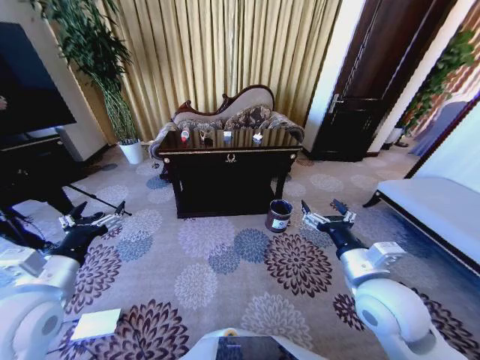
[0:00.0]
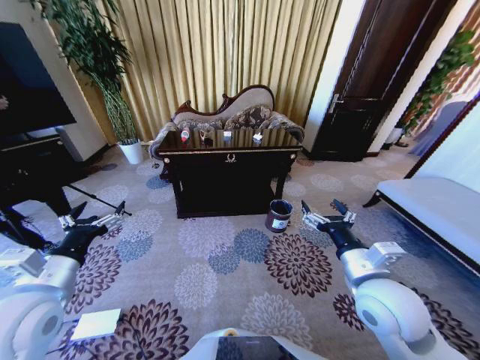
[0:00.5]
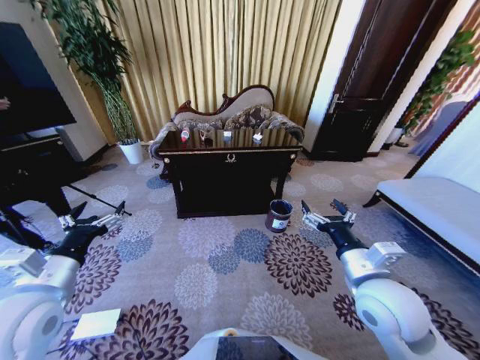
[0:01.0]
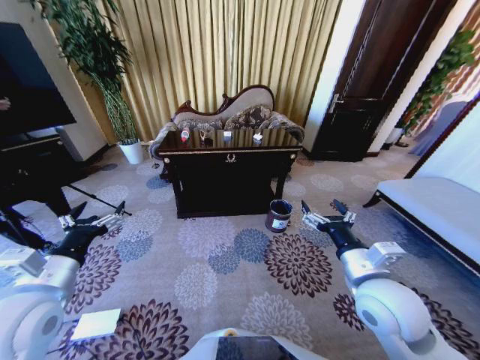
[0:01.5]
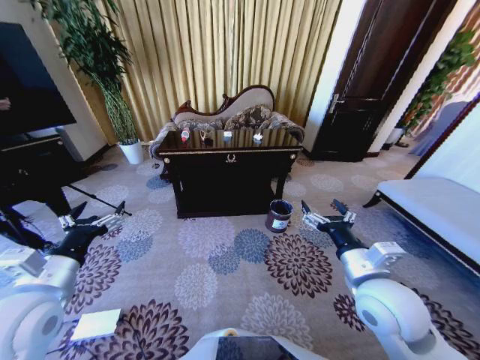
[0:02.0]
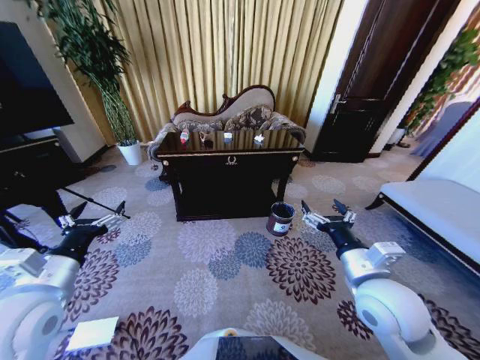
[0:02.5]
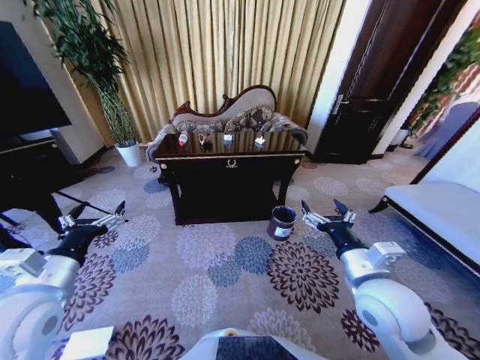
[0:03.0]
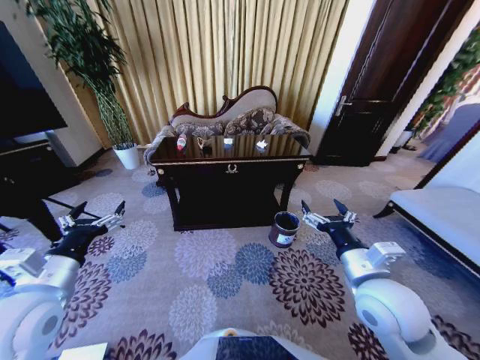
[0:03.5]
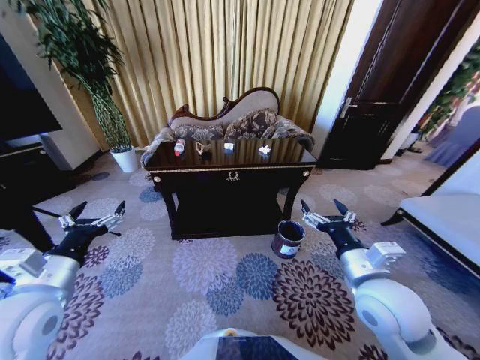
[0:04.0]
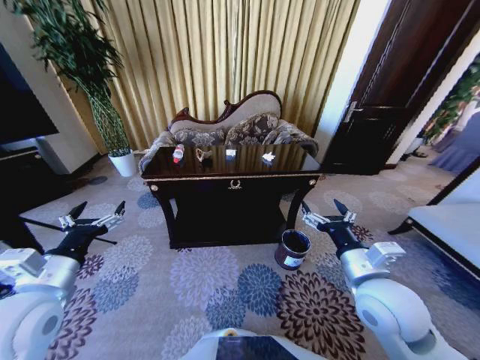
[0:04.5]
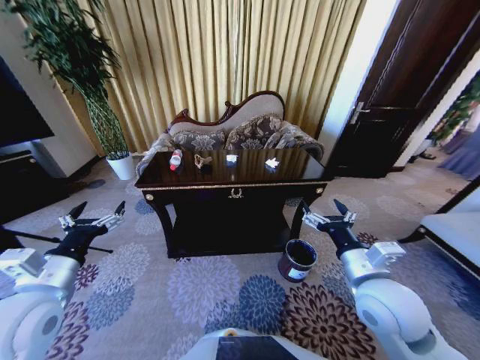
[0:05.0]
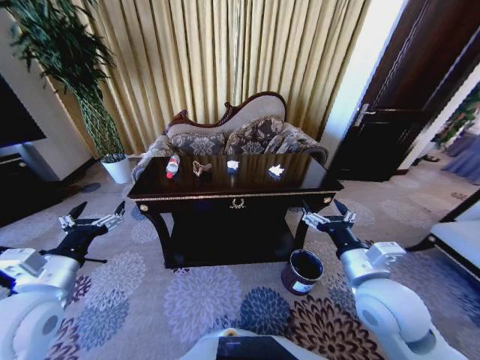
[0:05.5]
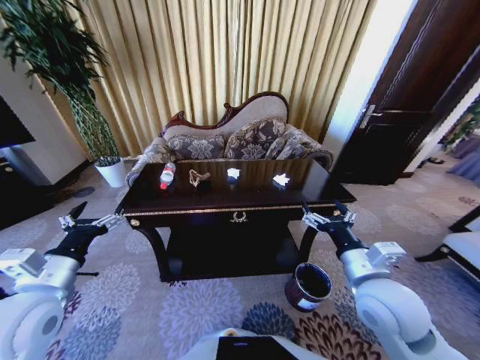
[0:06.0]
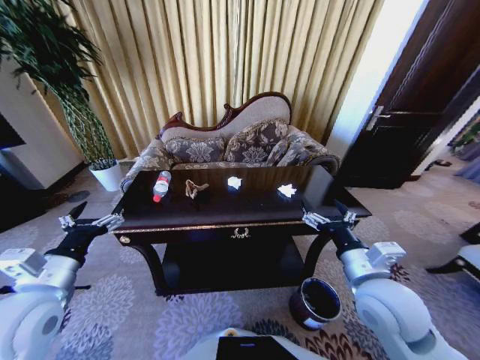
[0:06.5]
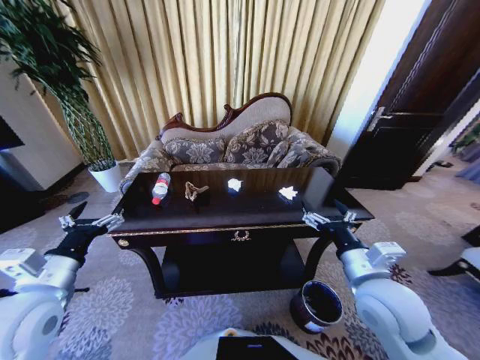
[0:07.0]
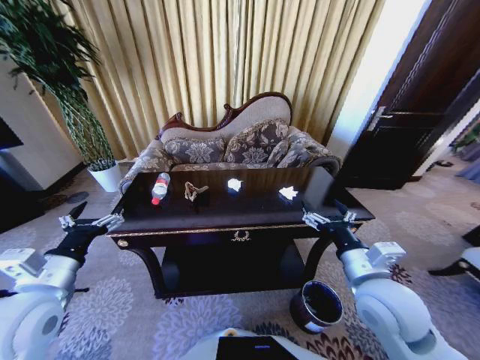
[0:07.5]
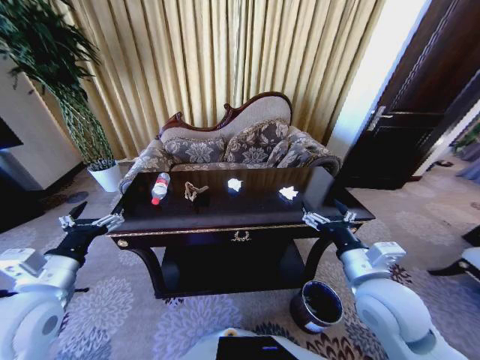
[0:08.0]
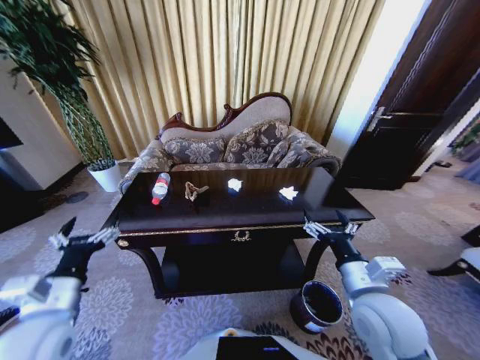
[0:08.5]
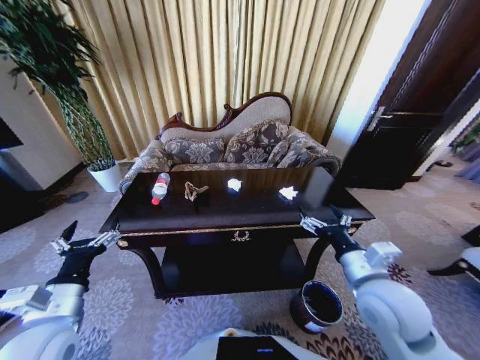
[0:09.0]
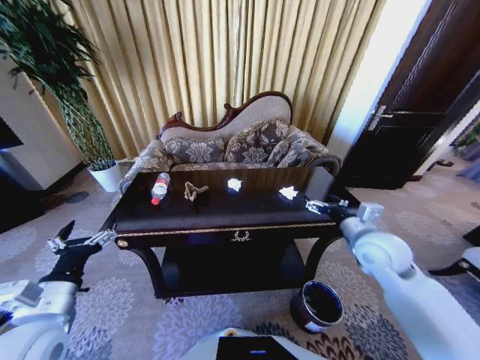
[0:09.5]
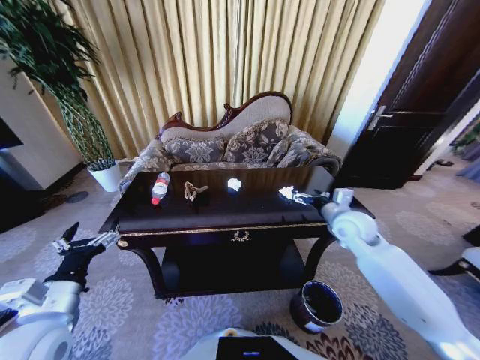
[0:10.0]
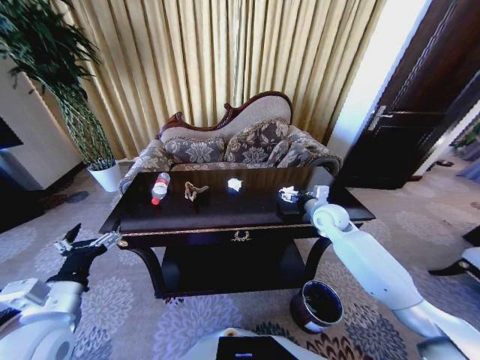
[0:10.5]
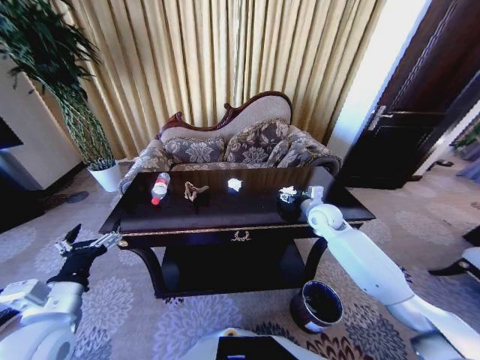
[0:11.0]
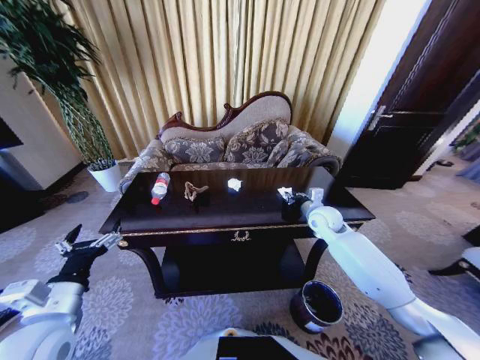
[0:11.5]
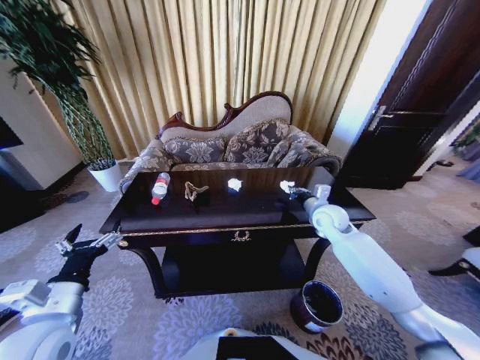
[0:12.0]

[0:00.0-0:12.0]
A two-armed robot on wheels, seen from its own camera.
Task of the whole recording: Move to the front of the table and place the trash on the table into the trash bin.
0:08.0 to 0:10.0: The right gripper goes some 20 cm forward. Meanwhile the left gripper shifts by some 5 cm.
0:10.0 to 0:12.0: The right gripper closes its fingers.

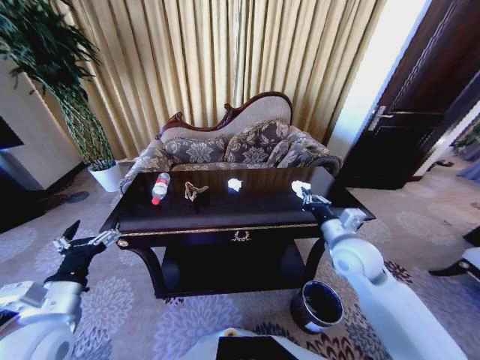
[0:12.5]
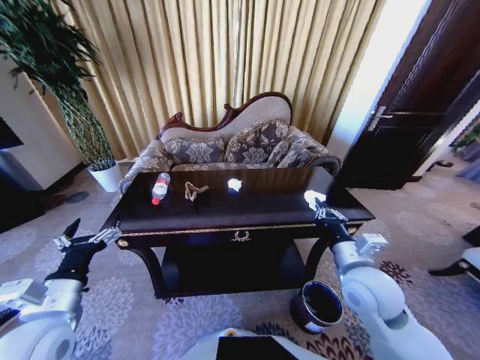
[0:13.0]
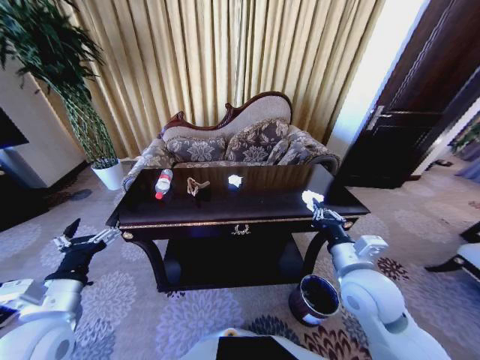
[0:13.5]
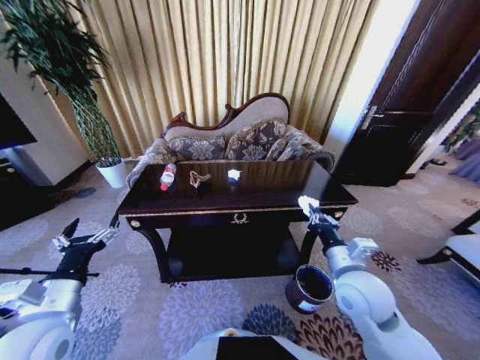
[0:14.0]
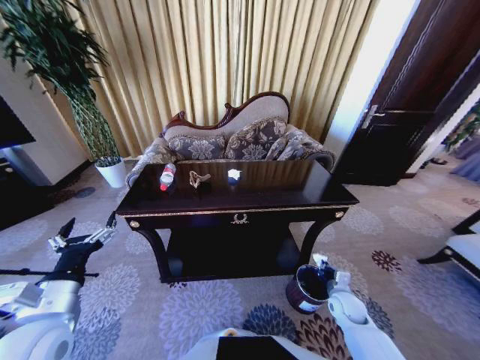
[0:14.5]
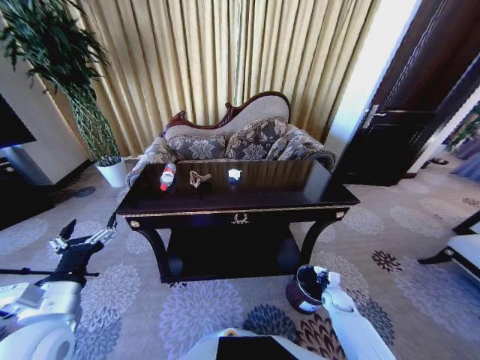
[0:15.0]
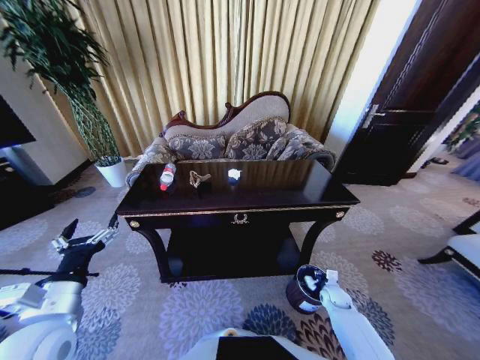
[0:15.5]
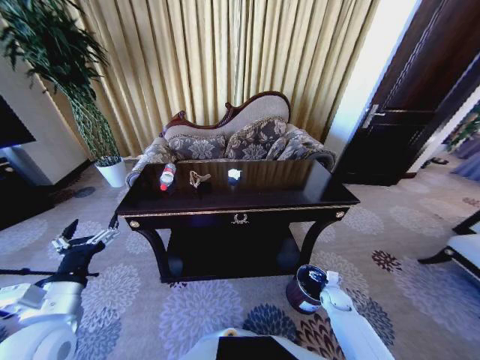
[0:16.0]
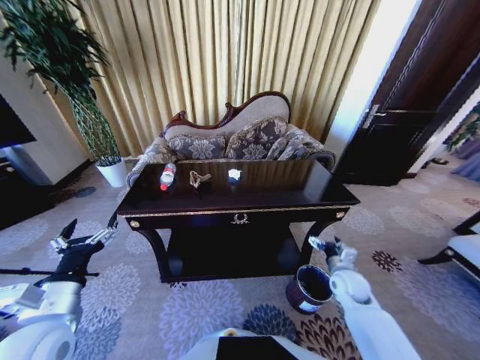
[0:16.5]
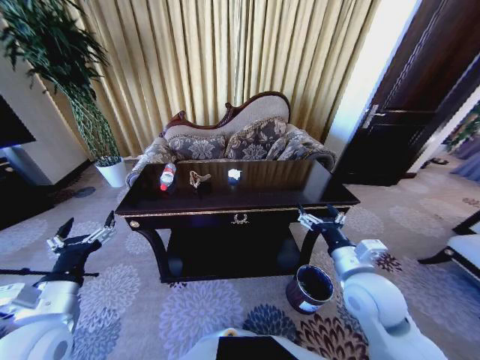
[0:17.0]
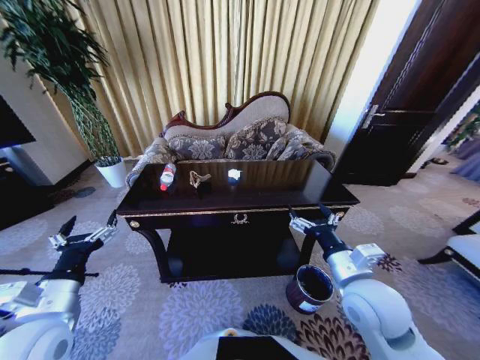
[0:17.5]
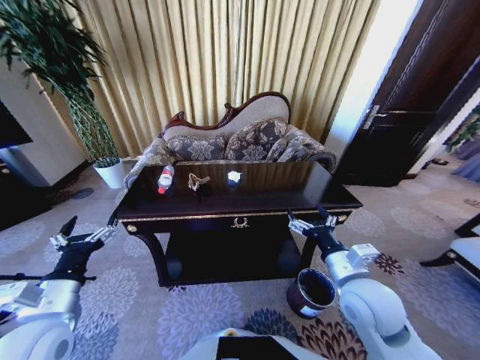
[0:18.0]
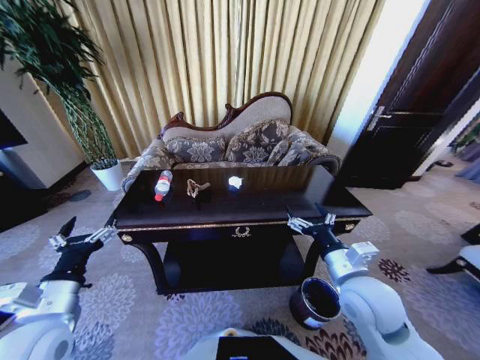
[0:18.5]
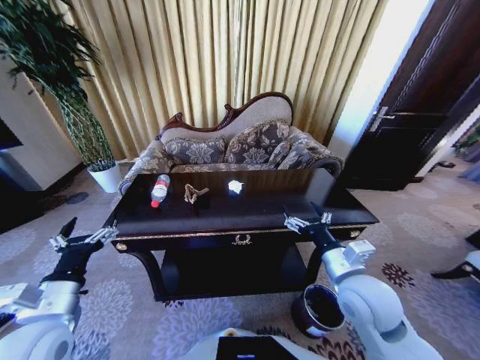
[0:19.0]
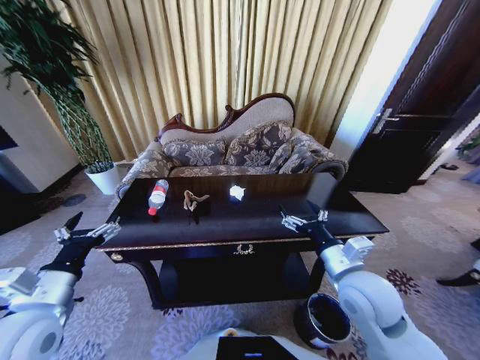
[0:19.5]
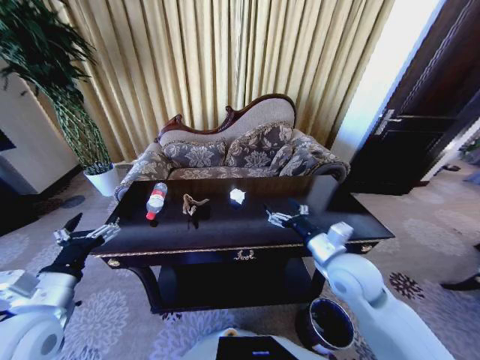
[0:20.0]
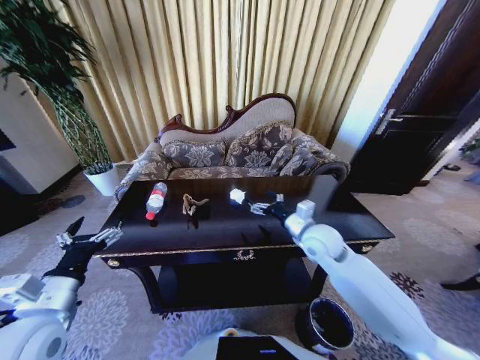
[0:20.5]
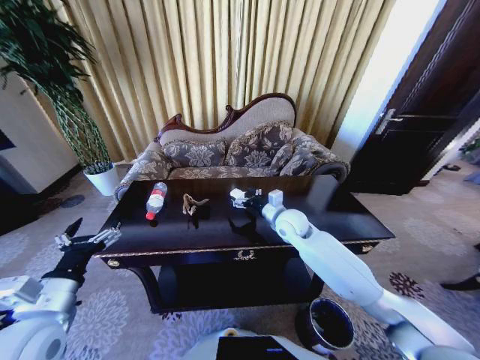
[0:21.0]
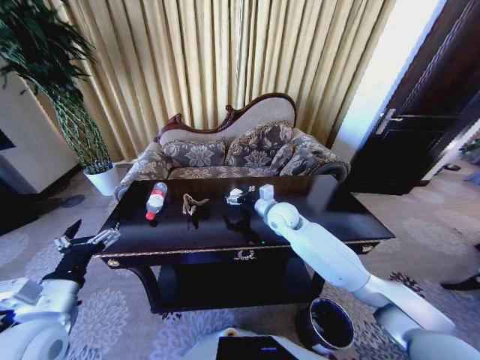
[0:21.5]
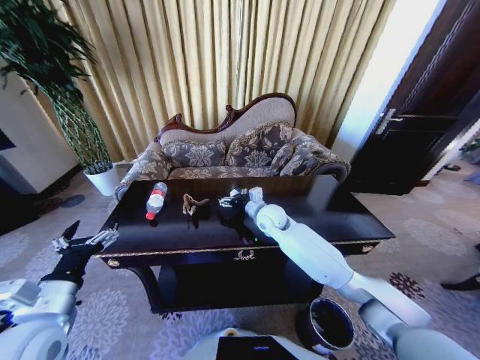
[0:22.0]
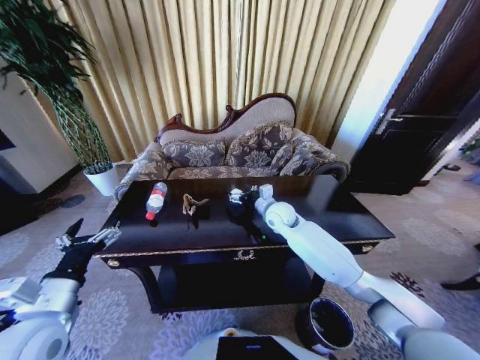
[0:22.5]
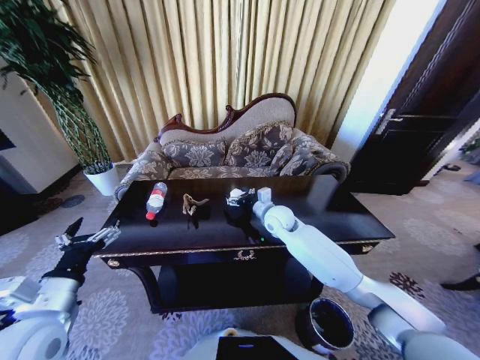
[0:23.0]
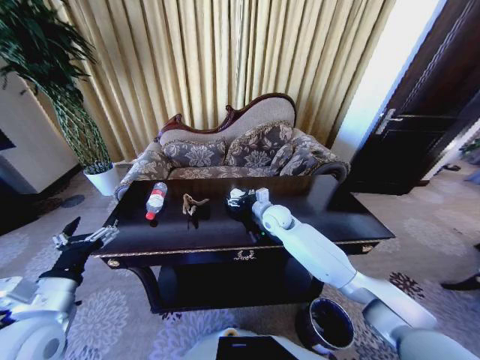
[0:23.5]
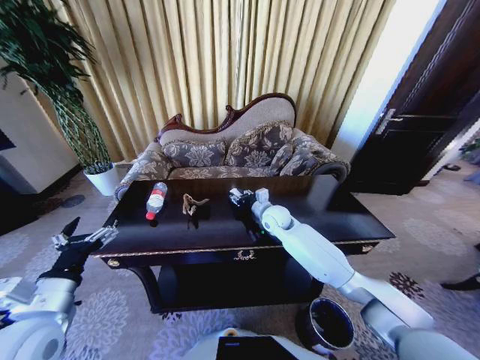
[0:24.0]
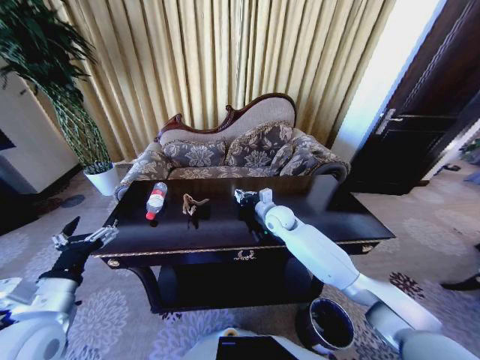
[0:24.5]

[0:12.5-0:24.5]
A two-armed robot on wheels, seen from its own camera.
Task of the whole recording: Move to the front of the table and place the trash on the table into the trash bin.
0:12.5 to 0:14.5: The right gripper shifts roughly 25 cm downward.
0:14.5 to 0:16.5: The right gripper goes roughly 5 cm upward, and opens up.
0:16.5 to 0:18.5: The right gripper goes some 25 cm upward, to the left and backward.
0:18.5 to 0:20.5: The right gripper travels forward by about 15 cm.
0:20.5 to 0:22.5: The right gripper goes some 15 cm forward and to the left.
0:22.5 to 0:24.5: The right gripper closes up.

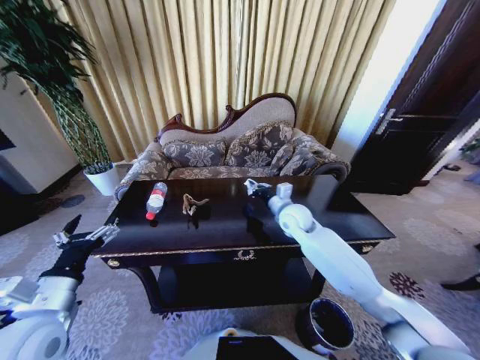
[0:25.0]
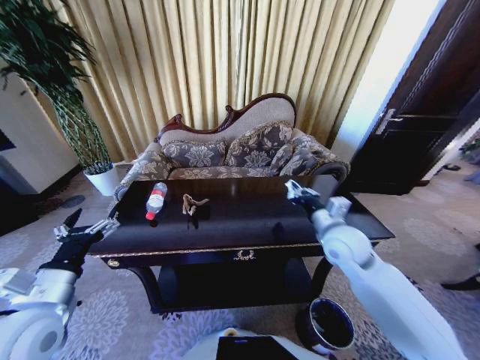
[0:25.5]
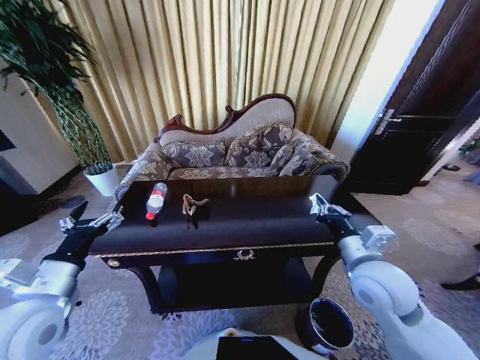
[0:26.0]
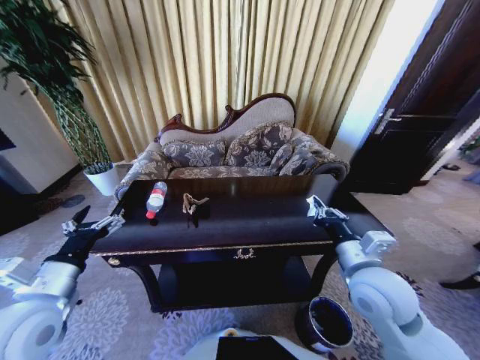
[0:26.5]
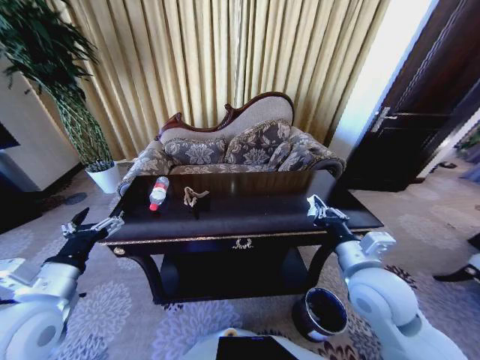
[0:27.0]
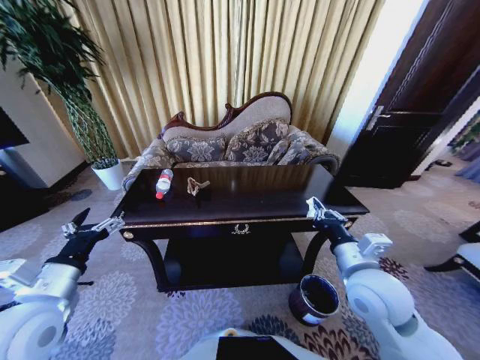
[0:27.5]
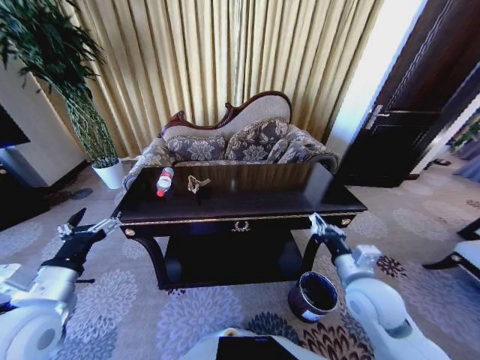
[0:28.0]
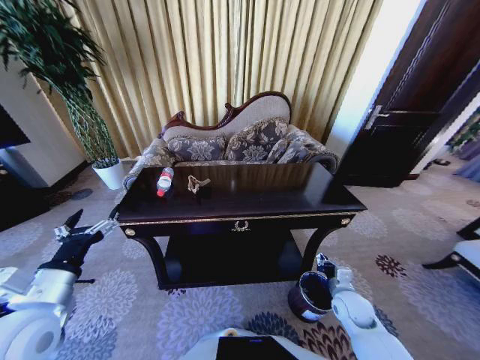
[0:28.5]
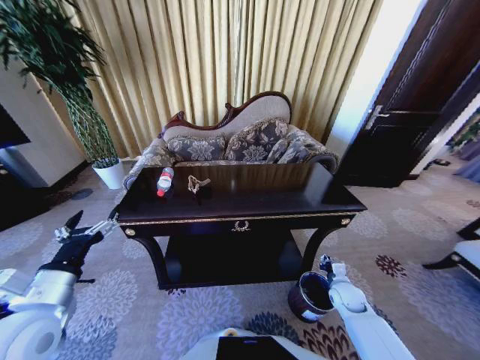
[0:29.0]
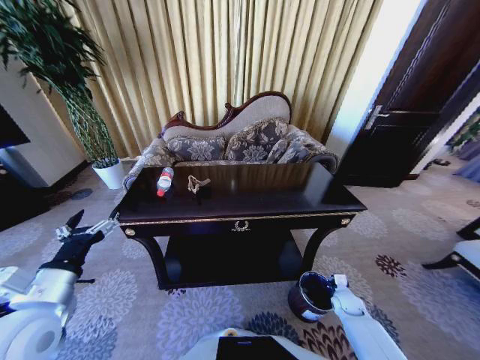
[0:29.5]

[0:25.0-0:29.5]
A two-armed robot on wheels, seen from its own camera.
Task of the whole recording: Move to the front of the table and place the trash on the table into the trash bin.
0:25.0 to 0:27.0: The right gripper heads backward, covering approximately 25 cm.
0:27.0 to 0:29.5: The right gripper heads downward and to the right, covering some 40 cm.
